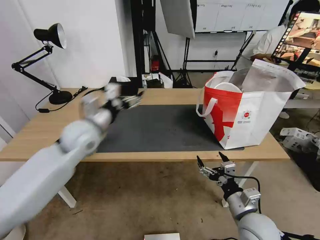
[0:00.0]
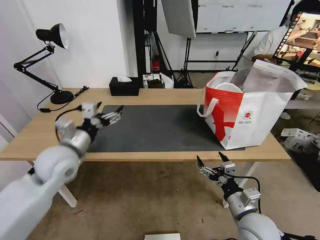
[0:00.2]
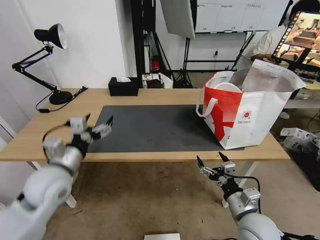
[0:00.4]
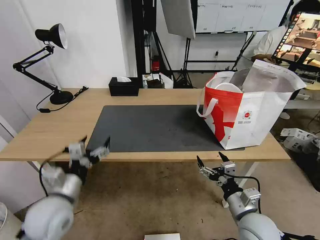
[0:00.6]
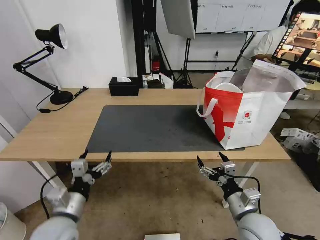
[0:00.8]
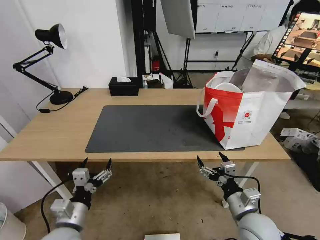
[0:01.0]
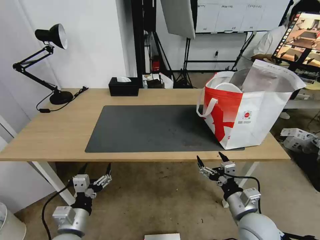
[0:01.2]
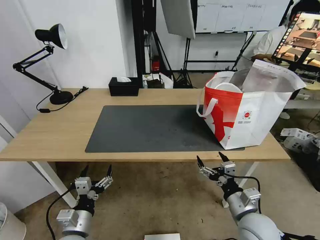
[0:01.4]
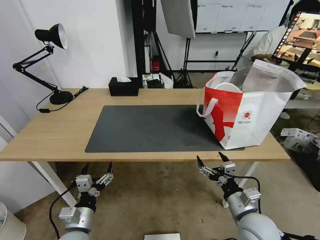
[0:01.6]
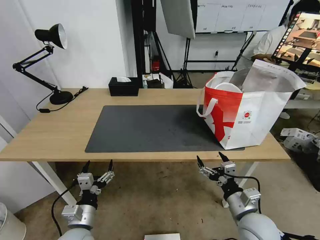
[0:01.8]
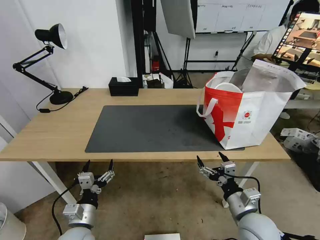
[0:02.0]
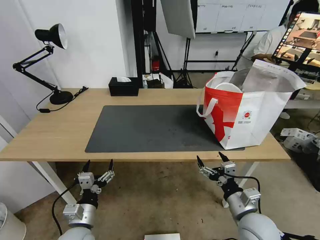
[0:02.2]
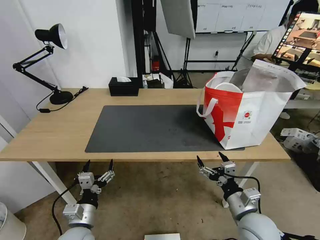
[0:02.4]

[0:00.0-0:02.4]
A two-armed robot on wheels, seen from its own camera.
Task of the whole recording: Pick up the trash from the table and place it into the takeout bag.
0:00.0 to 0:01.2: The left gripper is displaced backward and downward by about 30 cm.
0:01.2 to 0:02.4: The grippers make only small movements.

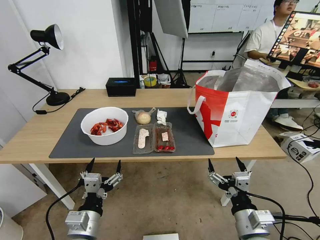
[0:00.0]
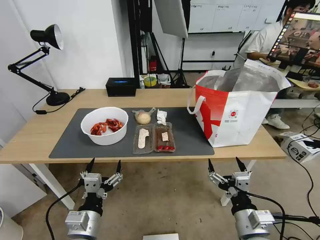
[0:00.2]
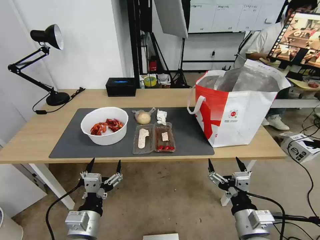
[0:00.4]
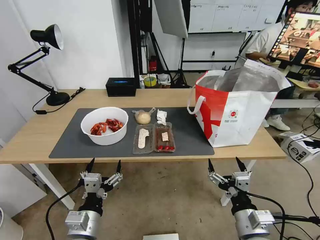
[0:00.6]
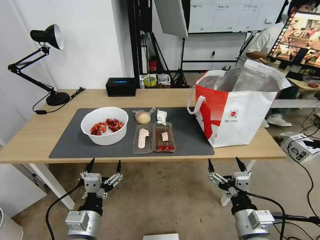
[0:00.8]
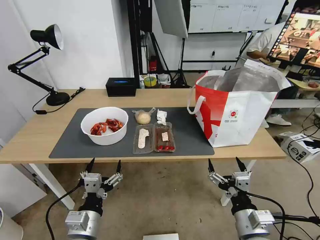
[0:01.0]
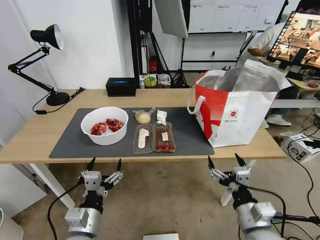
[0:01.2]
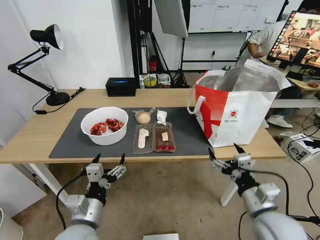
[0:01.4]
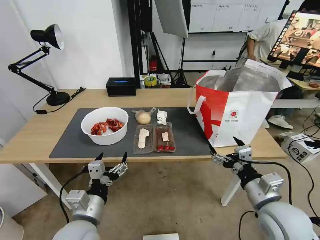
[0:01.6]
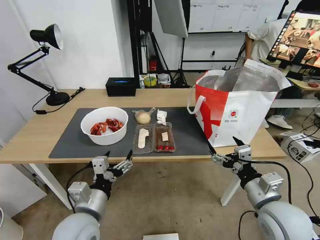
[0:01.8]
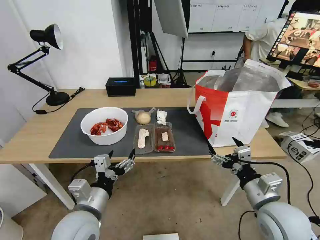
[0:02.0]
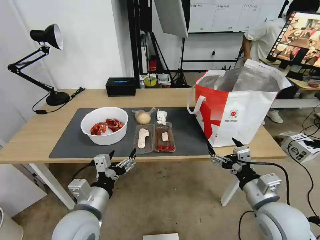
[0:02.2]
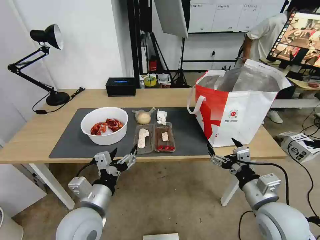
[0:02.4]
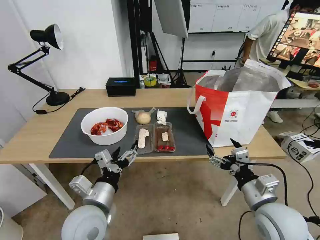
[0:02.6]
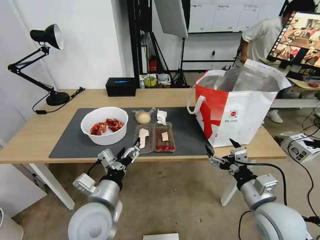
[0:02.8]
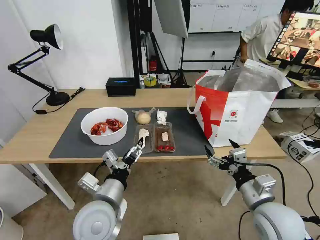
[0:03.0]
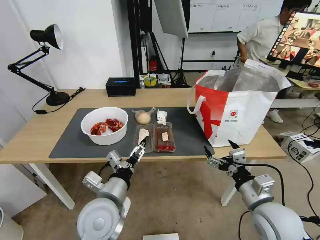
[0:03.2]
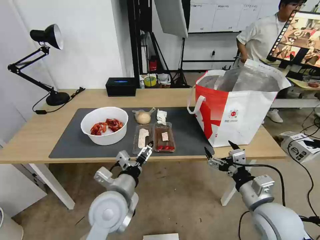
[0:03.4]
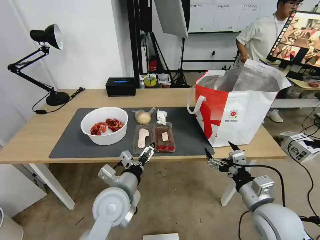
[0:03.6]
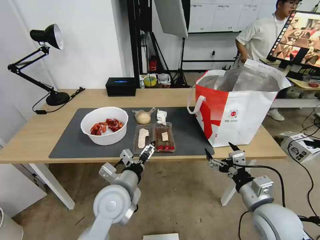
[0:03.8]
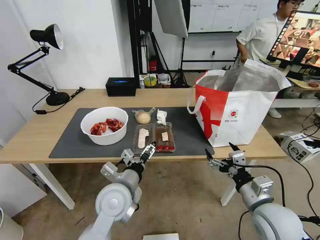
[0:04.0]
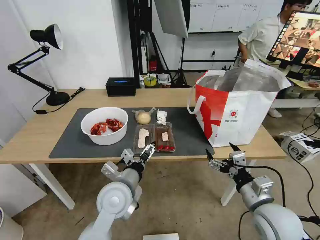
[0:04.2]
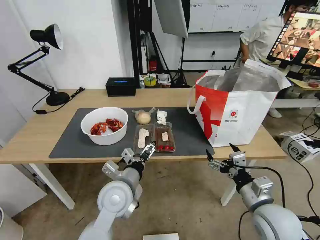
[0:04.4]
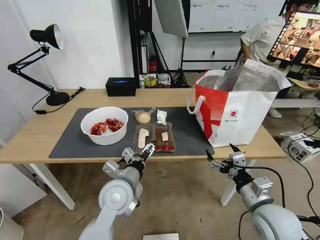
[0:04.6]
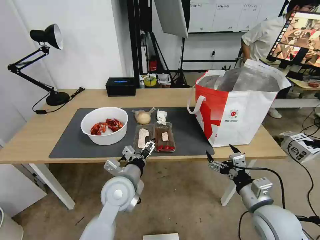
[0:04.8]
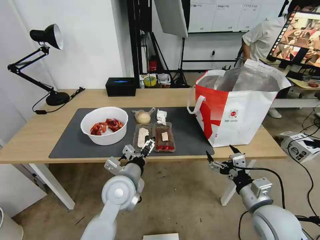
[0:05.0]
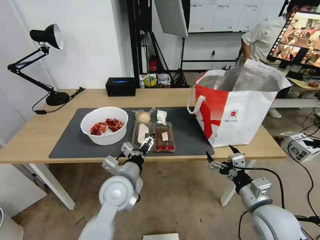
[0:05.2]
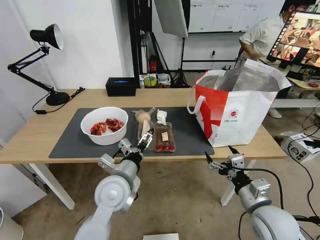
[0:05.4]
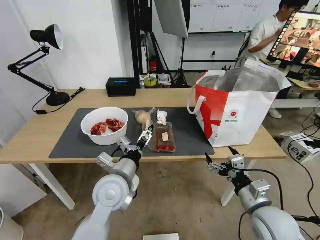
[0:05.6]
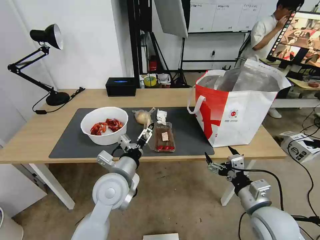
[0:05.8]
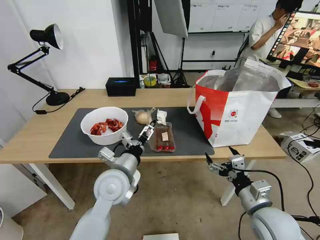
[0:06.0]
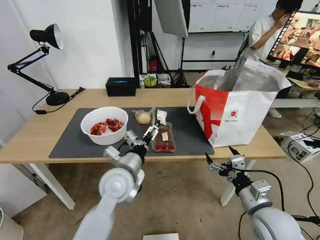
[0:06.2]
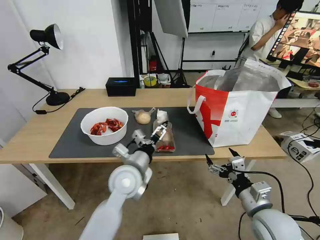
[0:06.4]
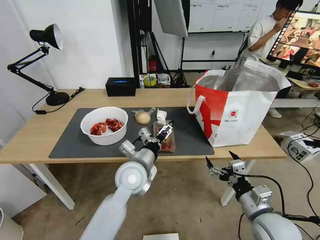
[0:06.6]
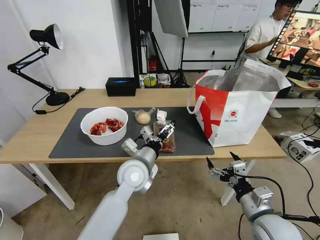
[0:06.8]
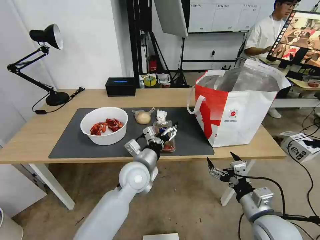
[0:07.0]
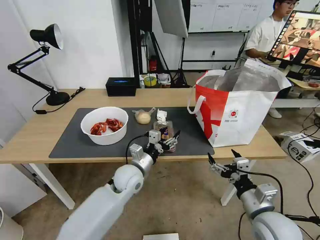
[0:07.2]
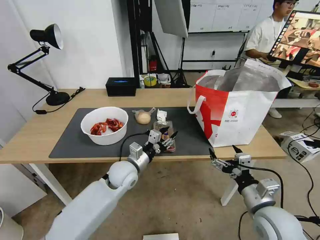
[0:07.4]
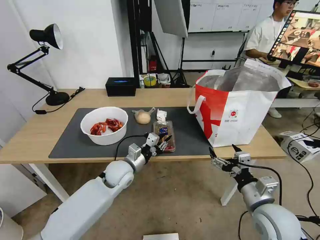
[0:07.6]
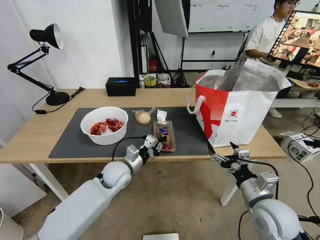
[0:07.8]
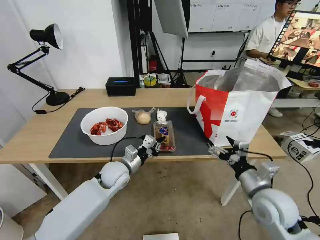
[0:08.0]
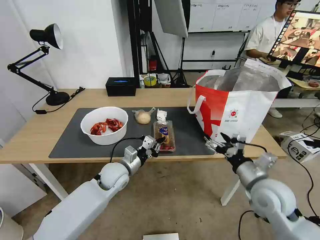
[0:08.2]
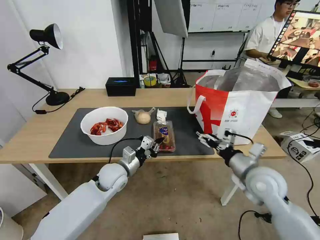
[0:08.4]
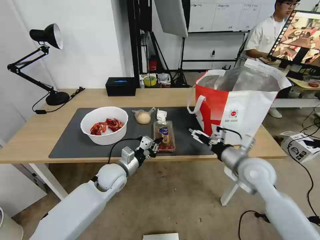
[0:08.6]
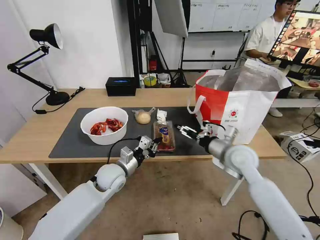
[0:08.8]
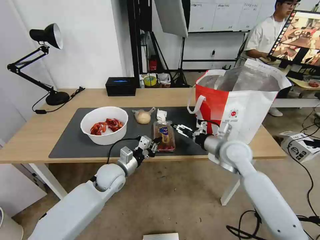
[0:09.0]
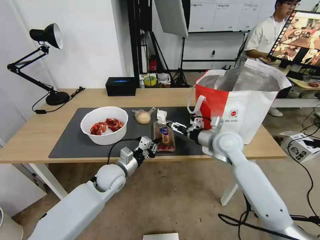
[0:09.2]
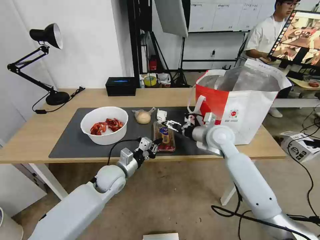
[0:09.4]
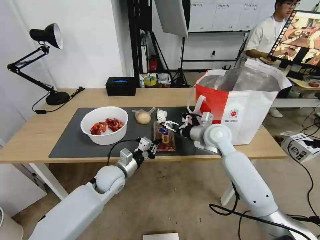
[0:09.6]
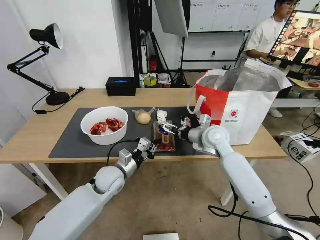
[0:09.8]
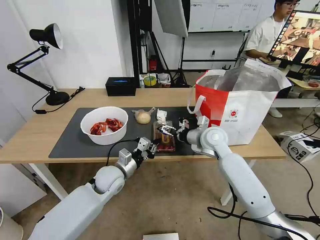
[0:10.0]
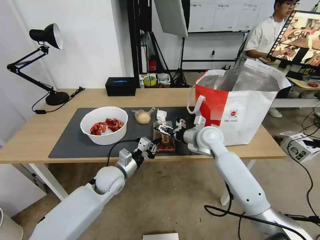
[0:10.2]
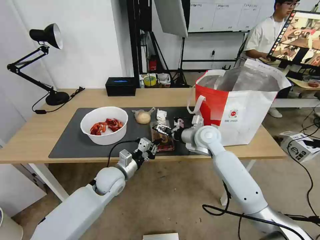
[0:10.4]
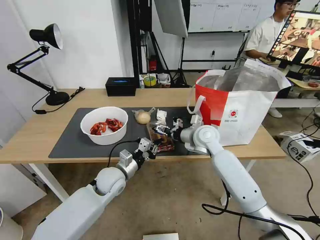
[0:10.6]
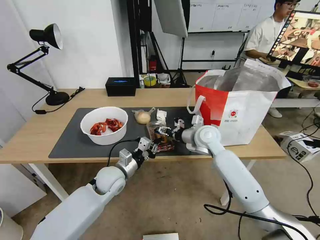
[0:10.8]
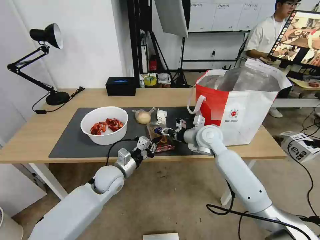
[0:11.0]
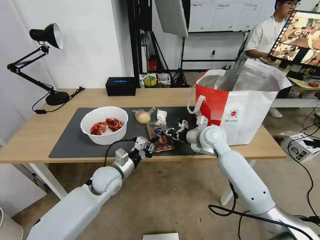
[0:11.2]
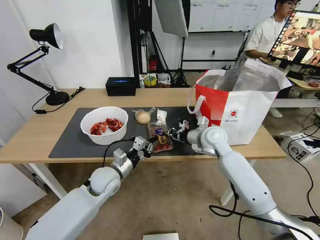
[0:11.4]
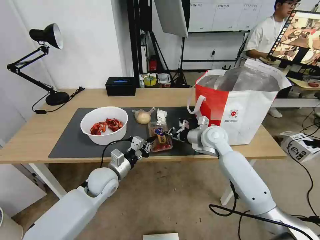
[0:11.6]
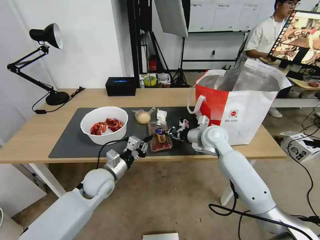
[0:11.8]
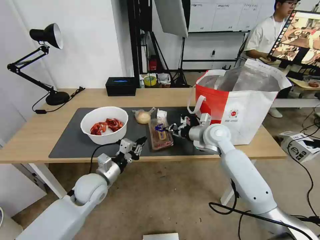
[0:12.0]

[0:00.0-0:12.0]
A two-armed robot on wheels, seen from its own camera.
Task of the whole recording: Pick up the trash from the table and place it into the takeout bag.
0:01.6 to 0:03.0: The left gripper changes place by roughly 5 cm.
0:03.0 to 0:04.4: The left gripper goes some 5 cm forward.
0:04.4 to 0:06.0: The grippers move only a little.
0:06.0 to 0:07.6: The left gripper heads downward and forward, covering about 10 cm, and closes its fingers.
0:07.6 to 0:09.0: The right gripper shifts approximately 20 cm forward.
0:09.0 to 0:10.4: The right gripper moves forward and to the left, roughly 10 cm.
0:10.4 to 0:12.0: The left gripper moves to the left, about 5 cm; the right gripper closes its fingers.

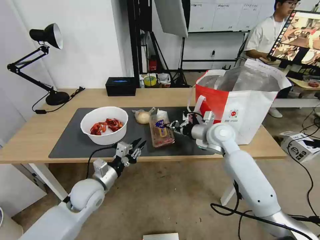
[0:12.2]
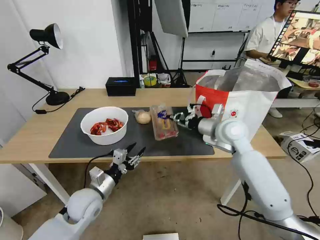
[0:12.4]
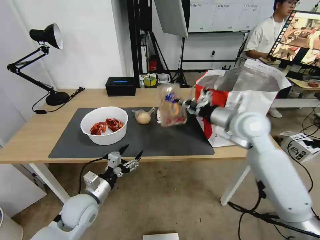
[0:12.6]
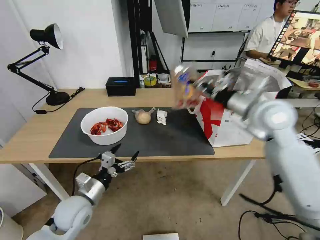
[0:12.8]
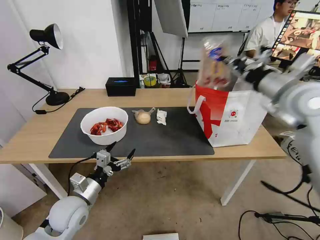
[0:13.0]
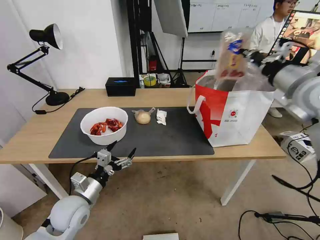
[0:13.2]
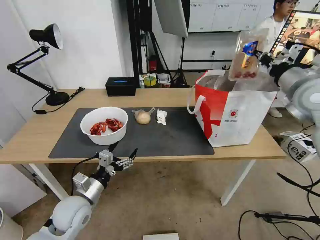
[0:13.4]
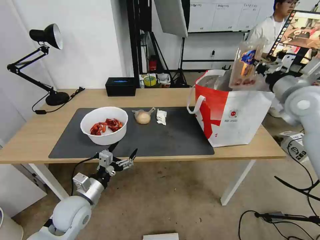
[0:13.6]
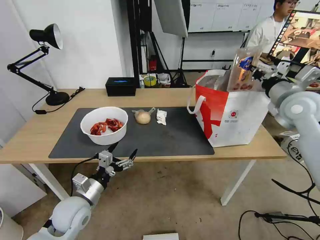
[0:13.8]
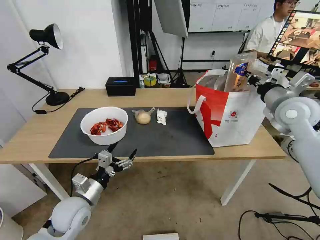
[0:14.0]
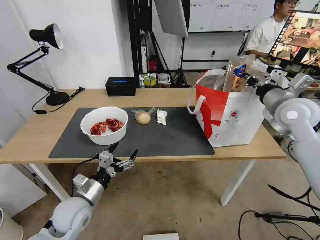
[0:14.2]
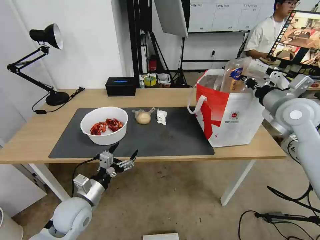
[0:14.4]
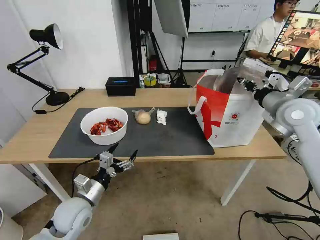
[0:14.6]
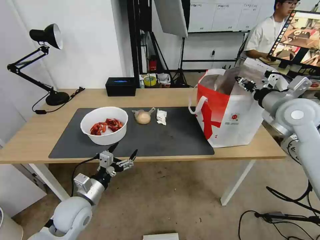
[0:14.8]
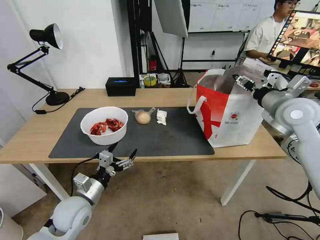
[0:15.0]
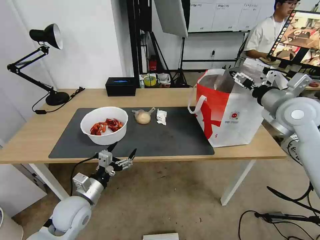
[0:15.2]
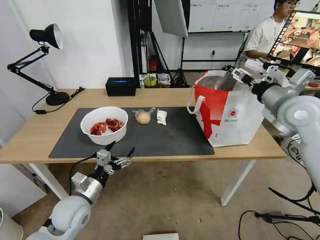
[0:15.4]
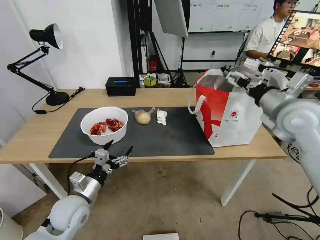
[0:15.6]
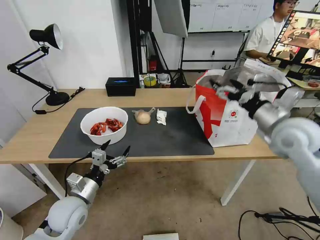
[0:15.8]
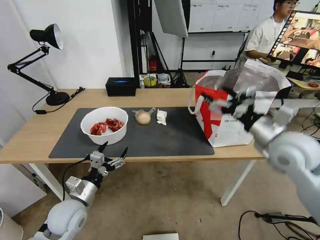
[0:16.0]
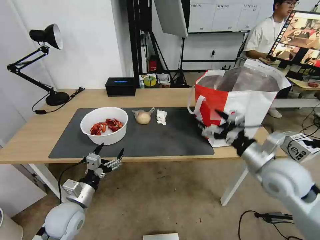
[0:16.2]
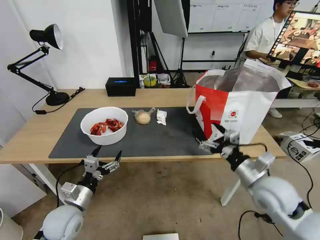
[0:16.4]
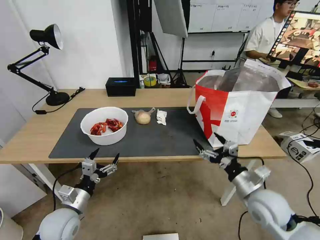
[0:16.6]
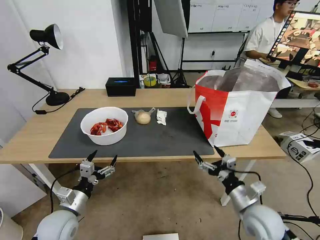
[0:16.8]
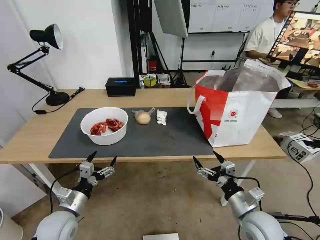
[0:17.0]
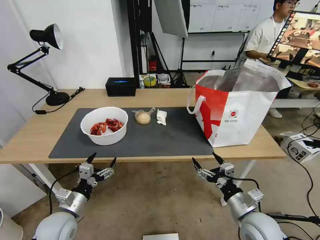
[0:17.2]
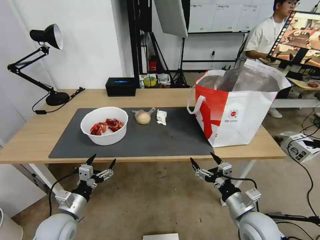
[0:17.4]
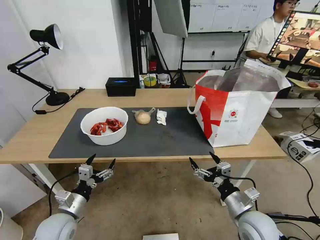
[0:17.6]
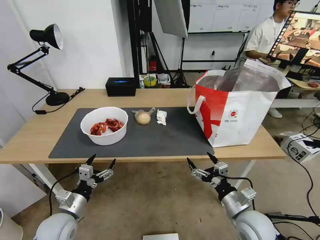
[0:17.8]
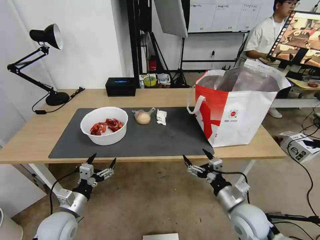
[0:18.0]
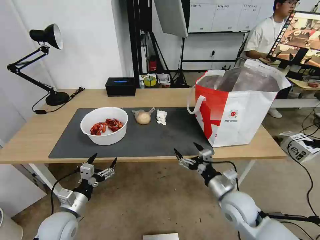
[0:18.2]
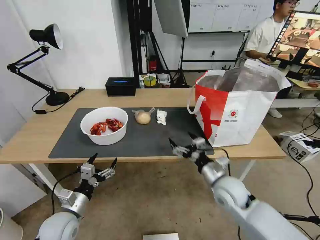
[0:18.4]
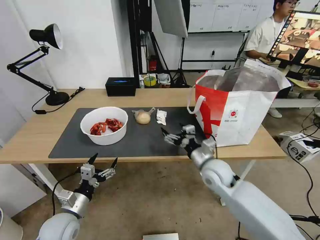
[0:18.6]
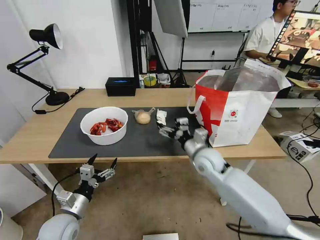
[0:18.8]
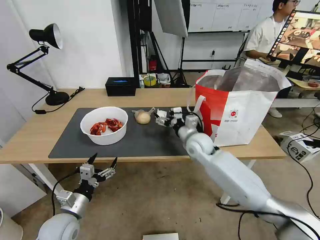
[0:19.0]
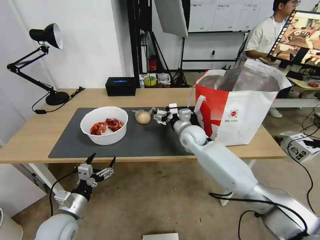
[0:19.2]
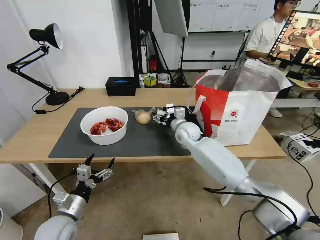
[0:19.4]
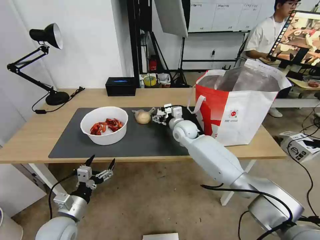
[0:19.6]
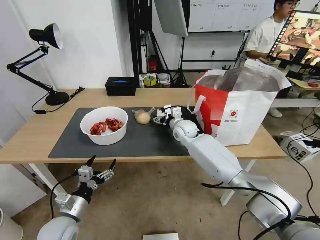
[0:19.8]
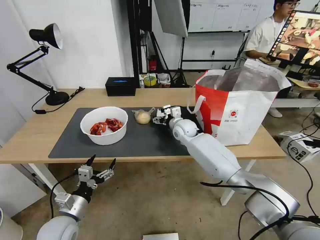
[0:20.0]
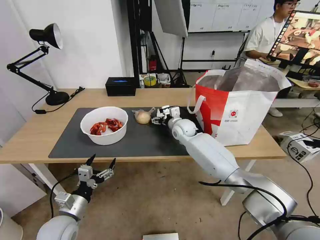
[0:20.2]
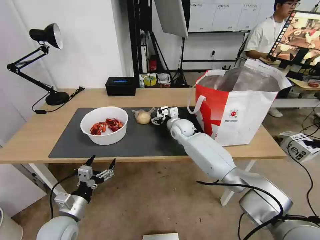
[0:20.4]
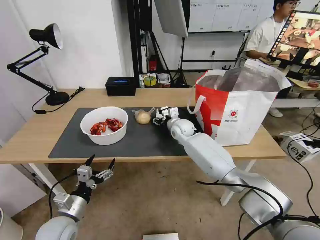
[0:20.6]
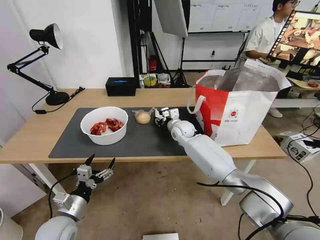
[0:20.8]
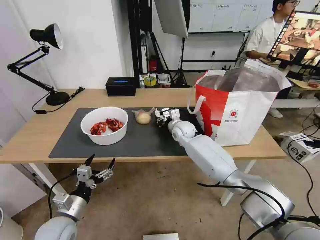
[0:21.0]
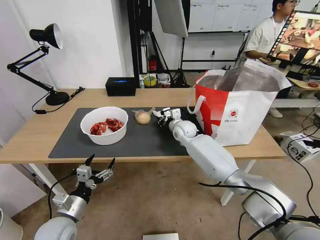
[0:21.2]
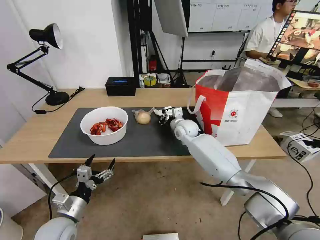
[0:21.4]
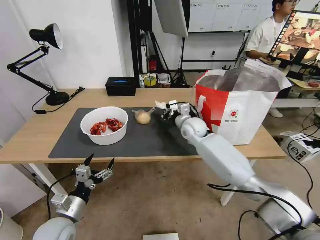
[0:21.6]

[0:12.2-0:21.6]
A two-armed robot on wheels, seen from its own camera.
Task of the whole recording: Pick up the trash from the table and place it into the takeout bag.
0:12.2 to 0:13.8: The right gripper is displaced to the right and upward by some 20 cm; the left gripper moves backward, approximately 5 cm, and opens up.
0:13.8 to 0:15.4: The right gripper opens up.
0:15.4 to 0:17.0: The right gripper travels downward and backward by some 35 cm. The left gripper changes place by about 5 cm.
0:17.0 to 0:18.4: The right gripper shifts about 15 cm forward and to the left.
0:18.4 to 0:20.0: The right gripper moves forward and to the left, approximately 25 cm.
0:20.0 to 0:21.6: The right gripper closes.
